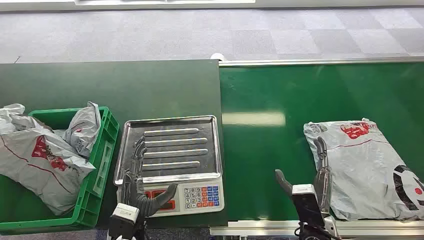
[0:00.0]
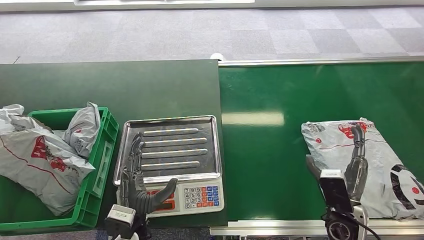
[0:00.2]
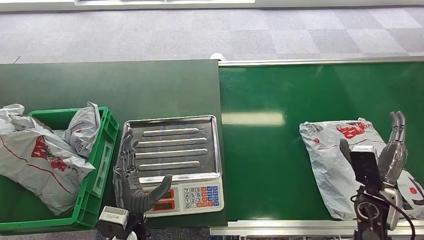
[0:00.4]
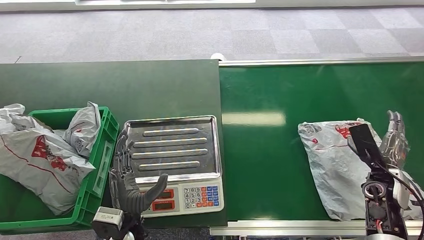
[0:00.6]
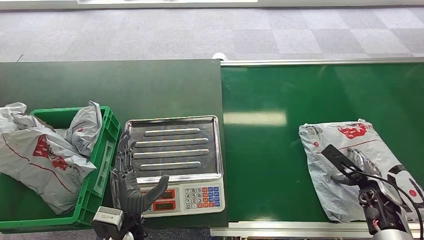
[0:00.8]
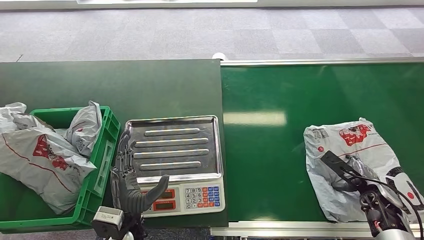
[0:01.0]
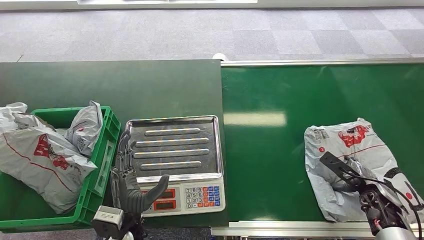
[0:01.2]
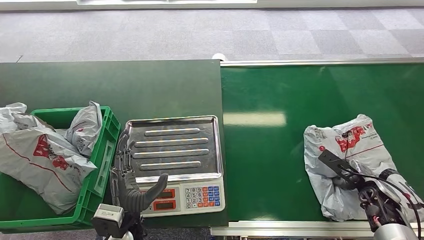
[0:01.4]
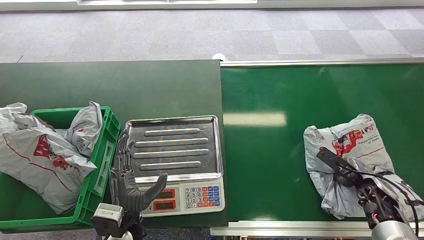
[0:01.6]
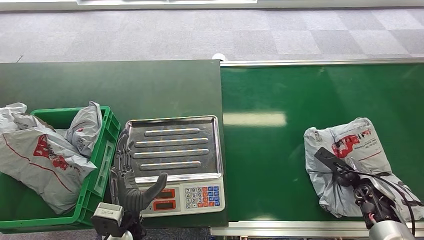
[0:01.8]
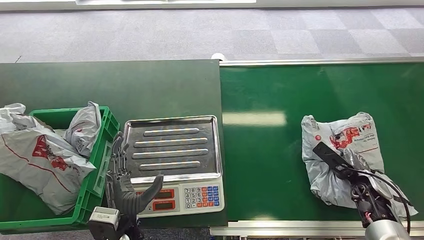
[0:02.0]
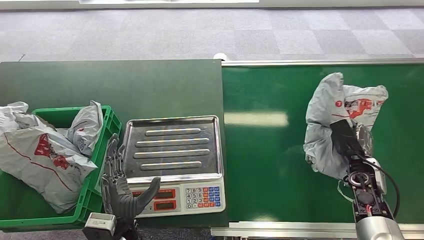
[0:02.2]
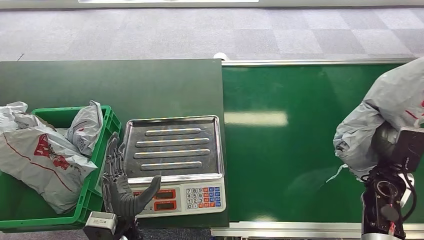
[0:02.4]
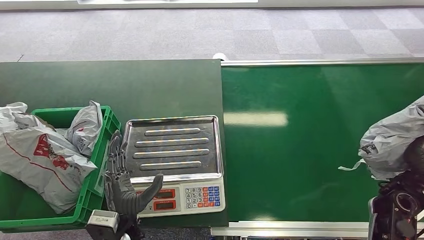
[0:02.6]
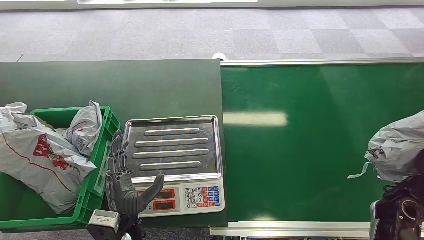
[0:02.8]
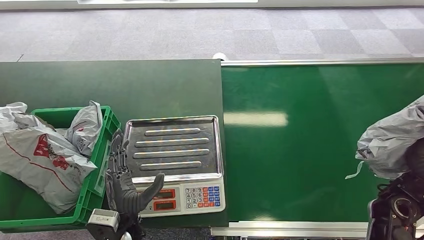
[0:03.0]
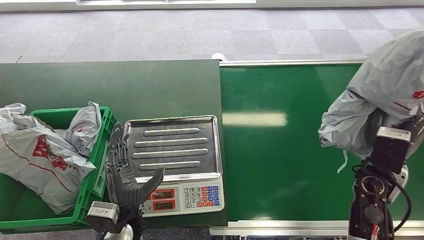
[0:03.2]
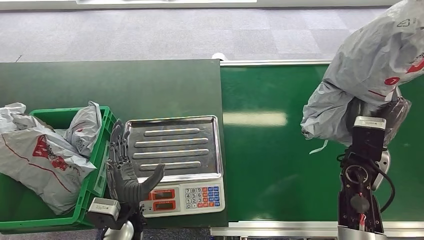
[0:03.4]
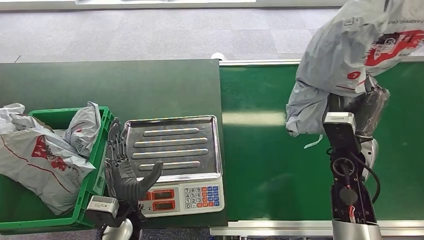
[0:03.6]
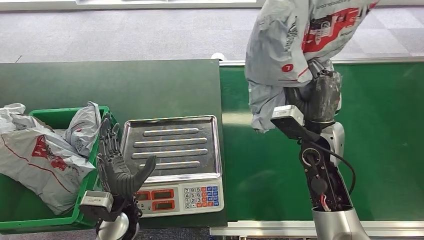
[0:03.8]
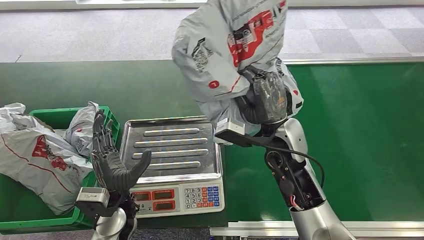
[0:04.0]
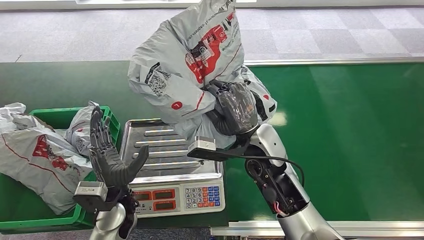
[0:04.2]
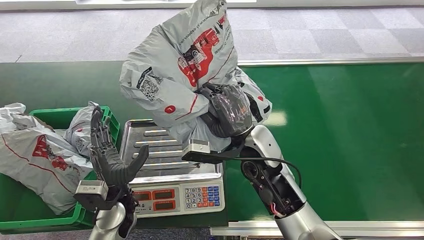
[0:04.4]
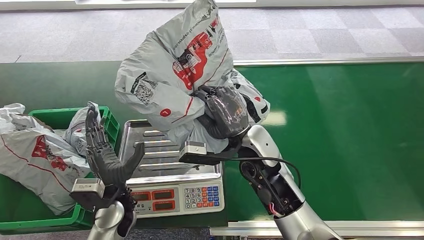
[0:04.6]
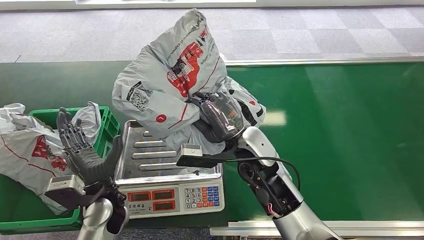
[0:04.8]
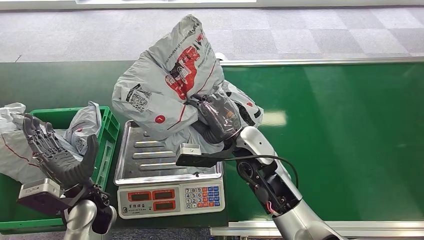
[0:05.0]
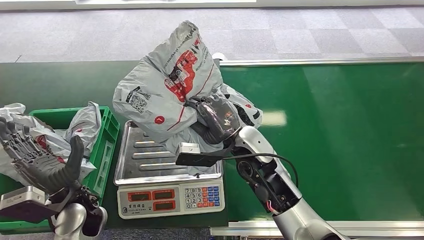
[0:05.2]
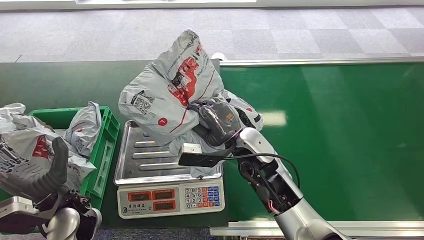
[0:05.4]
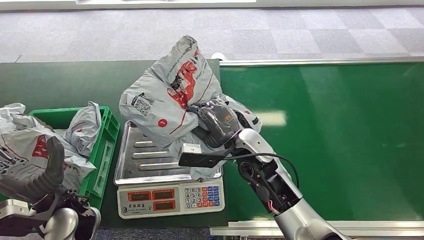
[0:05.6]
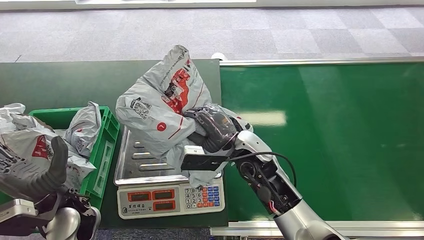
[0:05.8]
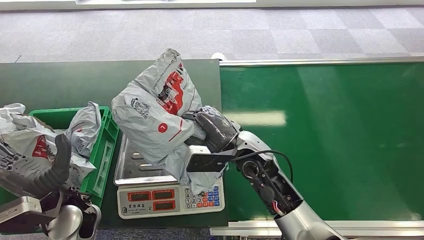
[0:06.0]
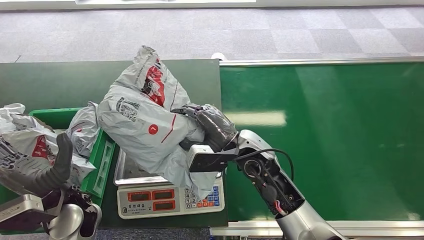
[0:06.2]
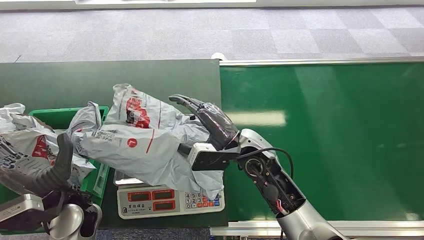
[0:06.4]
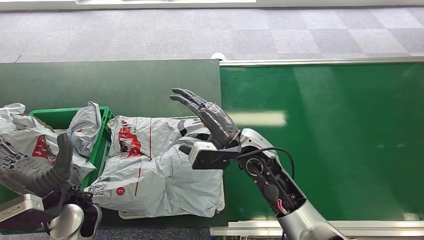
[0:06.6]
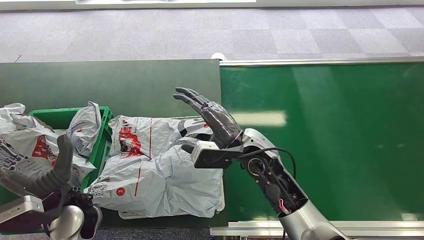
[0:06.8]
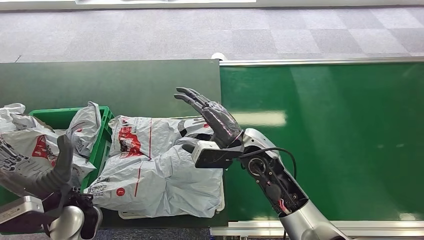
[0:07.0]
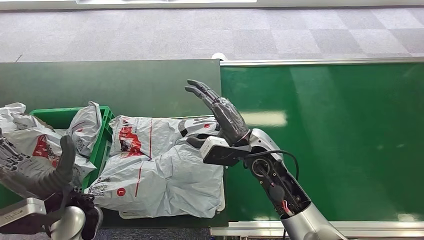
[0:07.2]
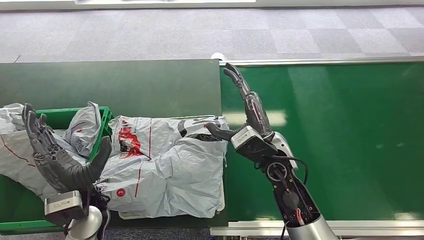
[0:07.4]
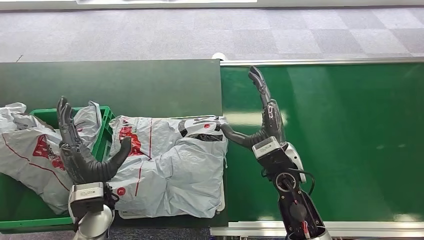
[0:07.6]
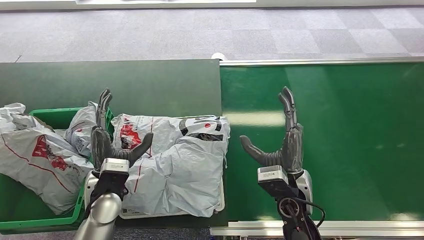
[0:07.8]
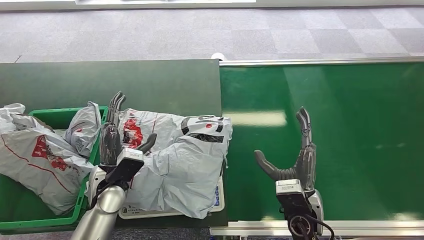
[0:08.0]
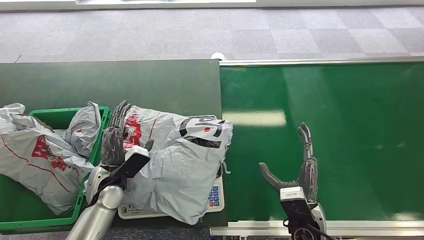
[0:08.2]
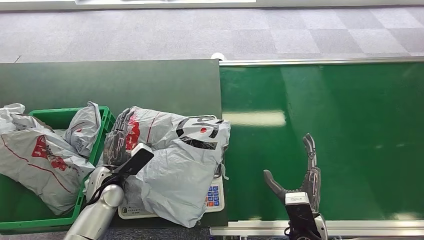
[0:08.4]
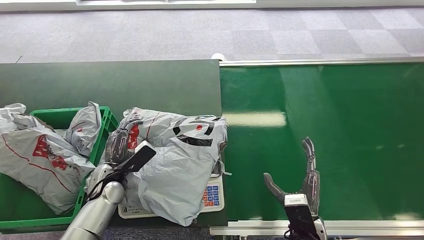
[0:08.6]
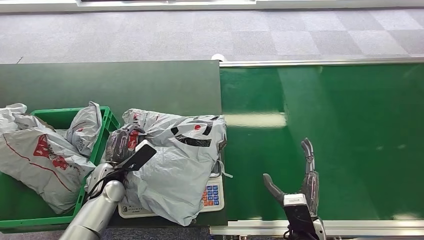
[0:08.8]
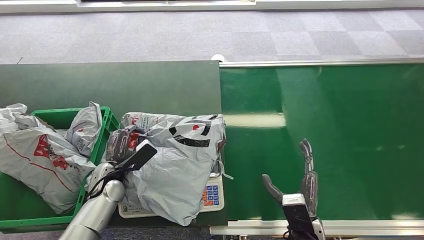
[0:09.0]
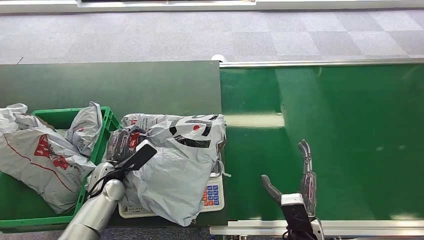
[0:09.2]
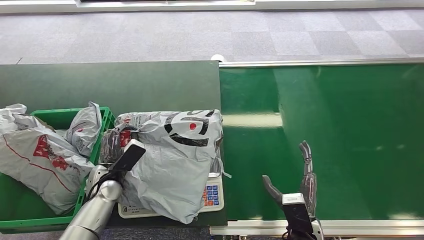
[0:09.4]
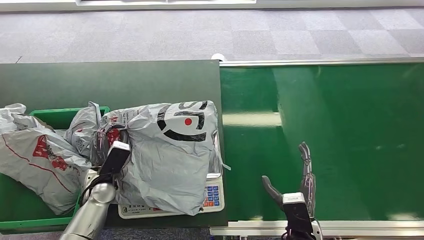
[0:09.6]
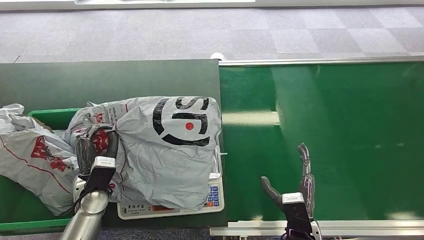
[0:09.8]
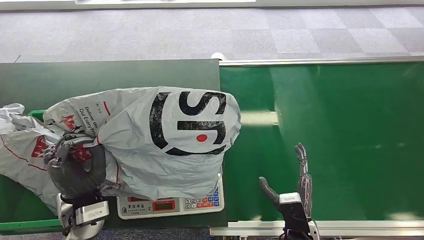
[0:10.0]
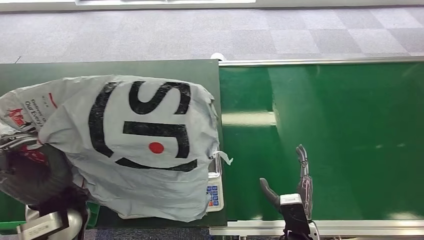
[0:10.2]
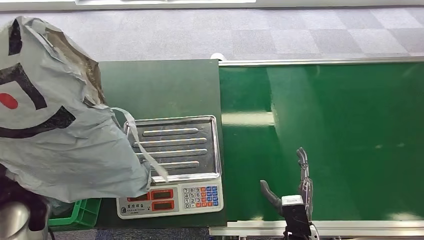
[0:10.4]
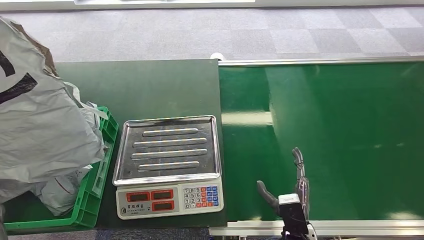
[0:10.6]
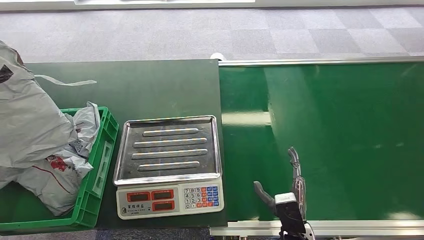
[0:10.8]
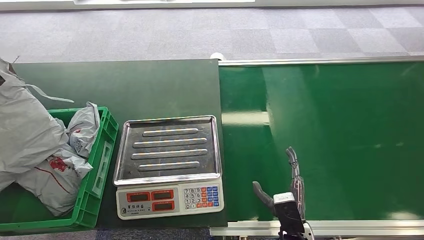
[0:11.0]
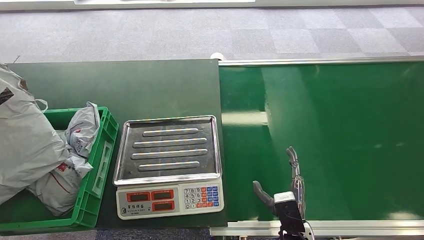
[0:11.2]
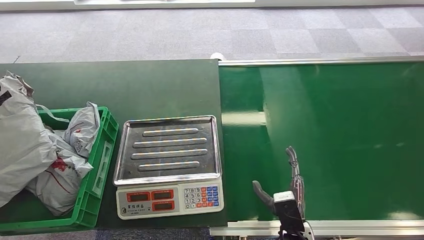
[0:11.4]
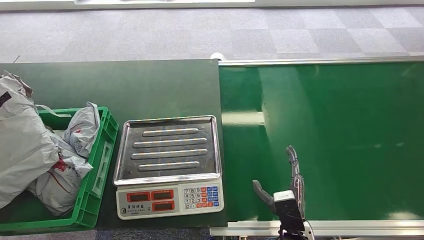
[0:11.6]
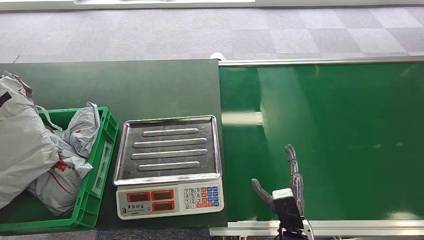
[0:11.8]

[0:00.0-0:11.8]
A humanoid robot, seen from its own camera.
Step, 0:00.0 to 0:02.4: Pick up the package from the conveyor belt.
Step, 0:02.6 to 0:07.4: Place the package onto the inbound machine.
Step, 0:07.6 to 0:10.8: Pick up the package from the inbound machine.
Step, 0:11.0 to 0:11.8: Place the package into the parcel locker.
0:01.4 to 0:03.0: The right hand travels upward and to the left by roughly 10 cm.
